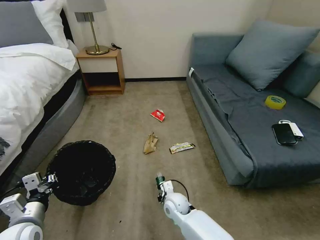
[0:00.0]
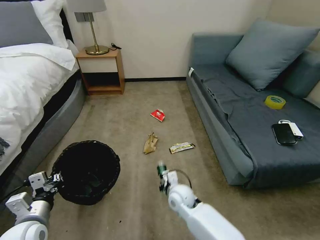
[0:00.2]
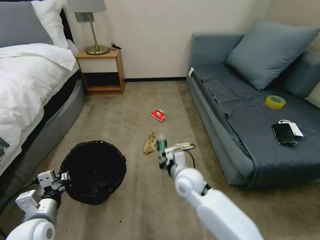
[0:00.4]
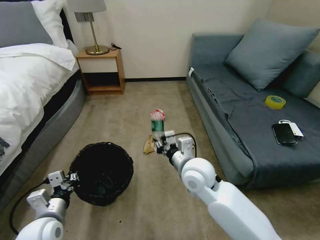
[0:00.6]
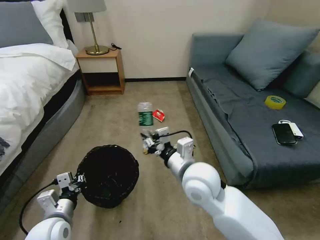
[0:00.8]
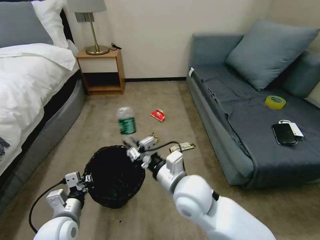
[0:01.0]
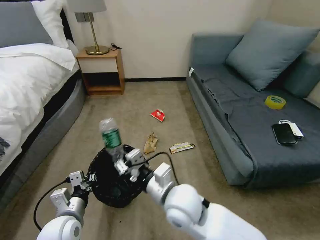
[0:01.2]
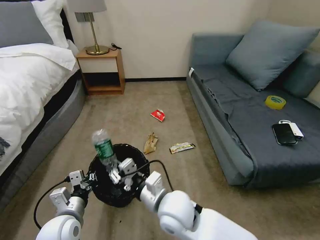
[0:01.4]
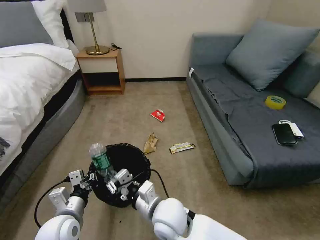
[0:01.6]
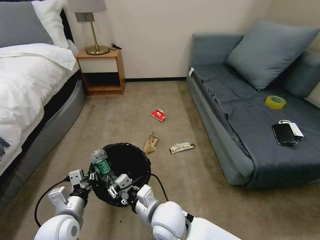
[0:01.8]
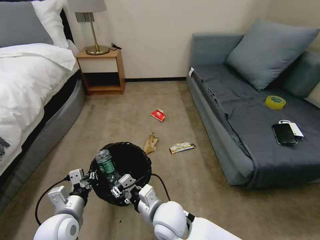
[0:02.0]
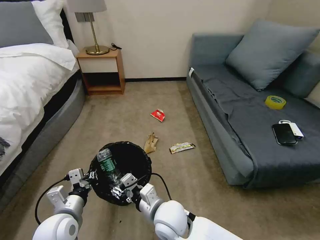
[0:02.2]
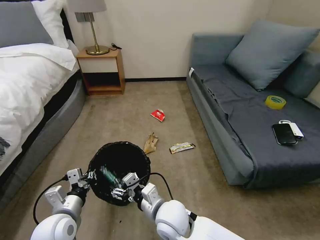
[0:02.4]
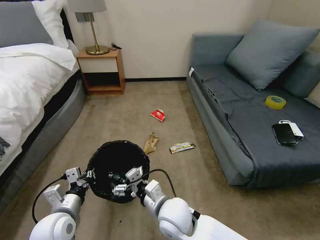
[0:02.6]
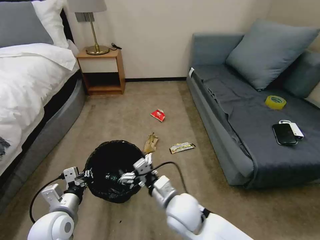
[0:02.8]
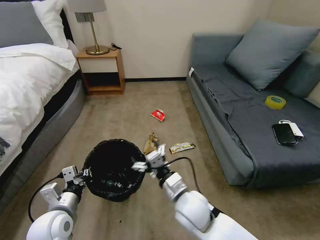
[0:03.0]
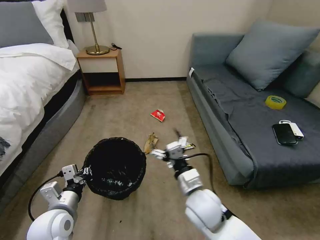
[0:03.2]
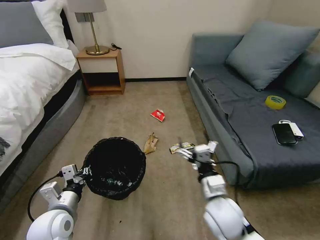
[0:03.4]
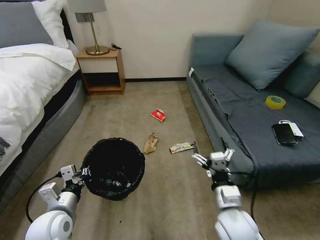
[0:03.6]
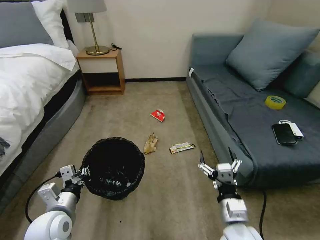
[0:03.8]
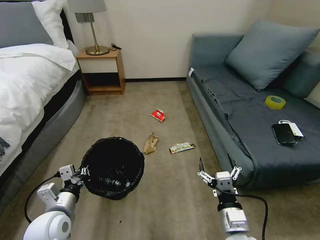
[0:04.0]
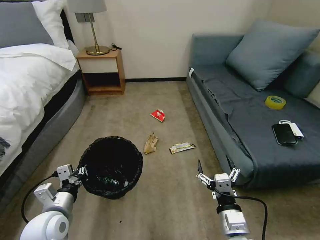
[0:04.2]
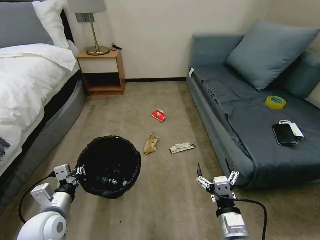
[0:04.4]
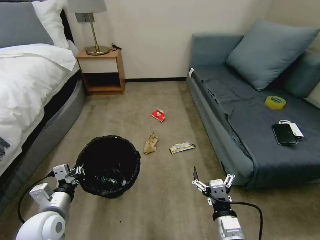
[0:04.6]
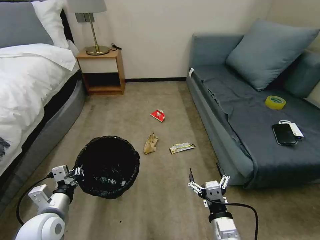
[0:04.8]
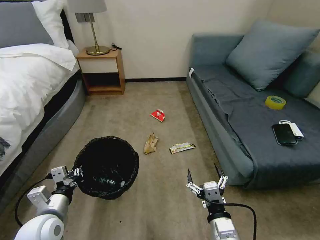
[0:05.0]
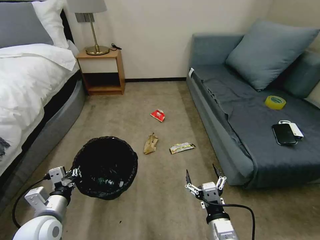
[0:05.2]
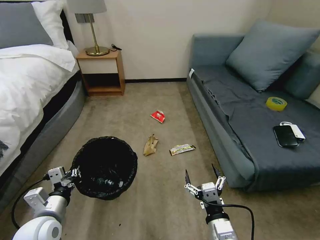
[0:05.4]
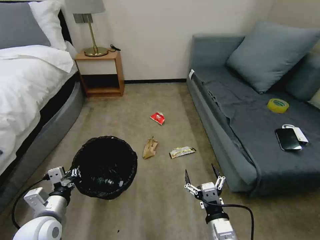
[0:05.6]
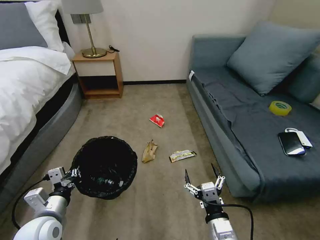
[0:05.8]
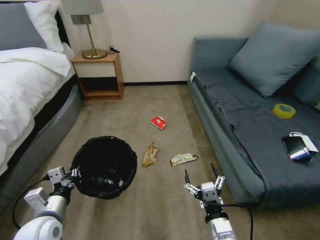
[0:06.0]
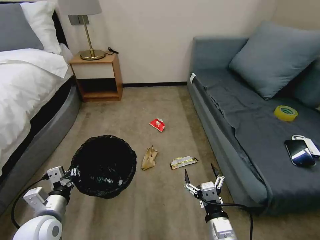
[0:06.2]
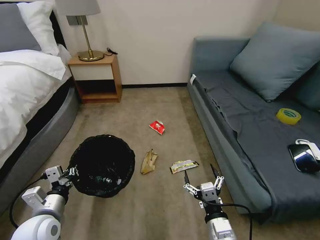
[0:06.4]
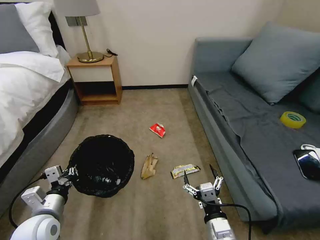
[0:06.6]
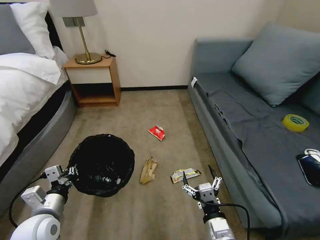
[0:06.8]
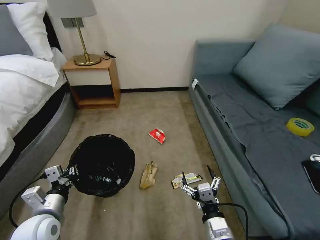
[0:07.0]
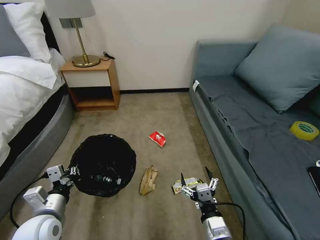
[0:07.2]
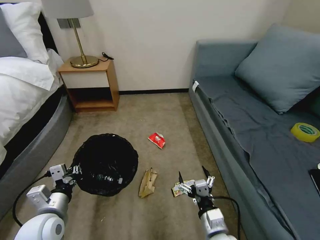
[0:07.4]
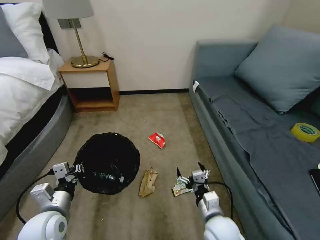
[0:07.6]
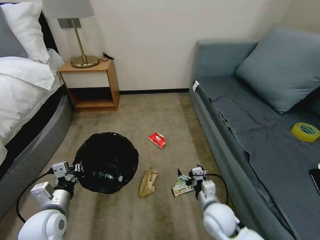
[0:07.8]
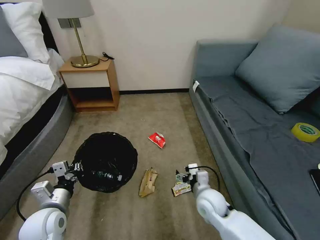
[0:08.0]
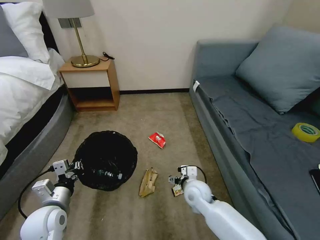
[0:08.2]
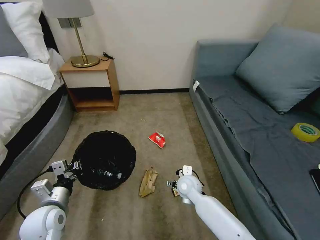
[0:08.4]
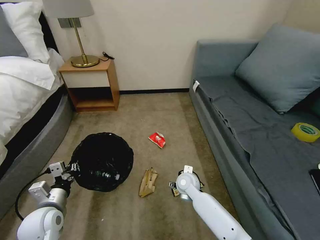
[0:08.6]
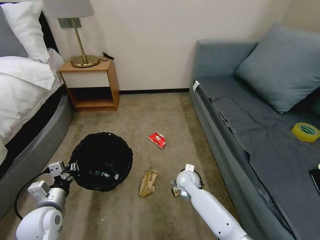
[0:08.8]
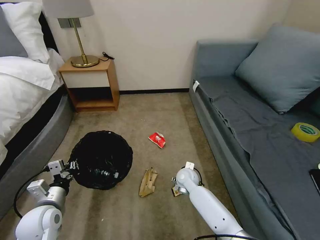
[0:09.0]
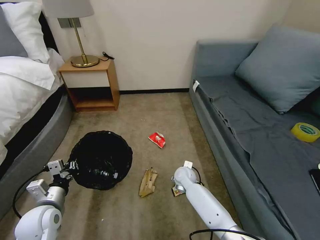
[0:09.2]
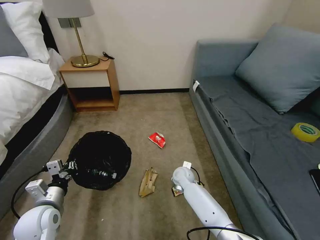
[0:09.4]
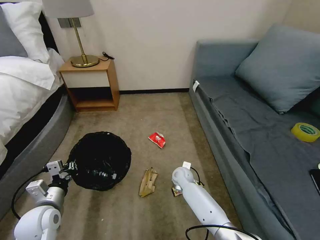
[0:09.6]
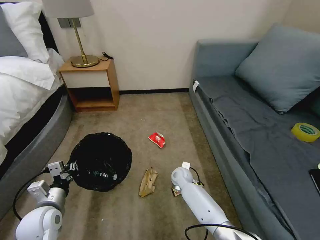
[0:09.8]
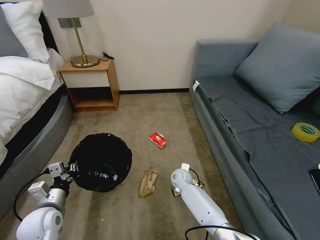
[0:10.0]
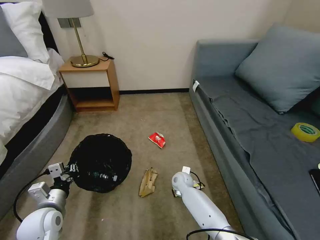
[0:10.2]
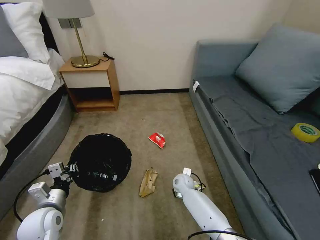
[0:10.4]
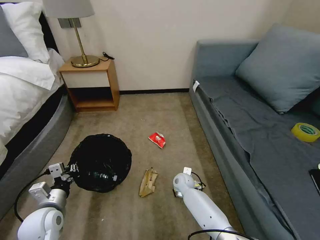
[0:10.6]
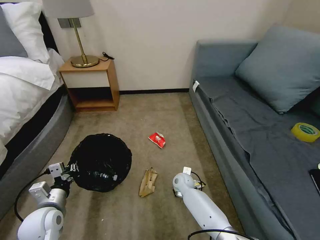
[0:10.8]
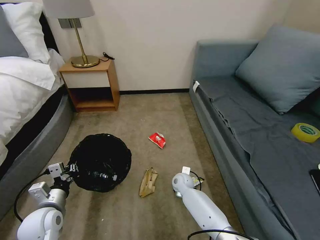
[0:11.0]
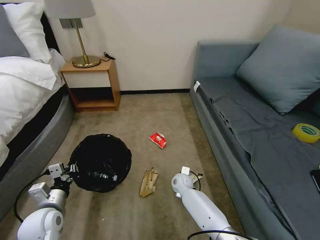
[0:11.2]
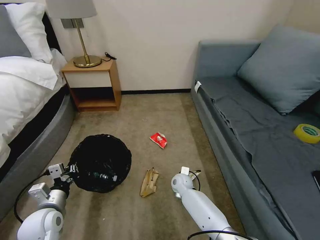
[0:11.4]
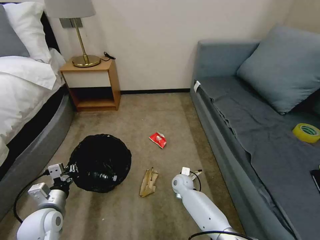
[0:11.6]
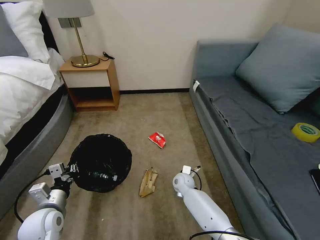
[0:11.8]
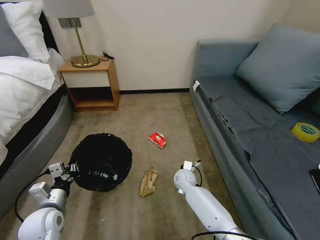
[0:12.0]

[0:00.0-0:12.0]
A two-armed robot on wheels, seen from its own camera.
Task of the whole recording: Pick up the trash bin, then pick up the garbage on the floor and place it into the trash bin.
0:00.0 to 0:01.6: The left gripper shifts roughly 10 cm to the right. The right gripper is displaced upward and backward by roughly 20 cm.
0:01.6 to 0:03.0: The right gripper moves to the right, some 5 cm, and opens.
0:03.0 to 0:04.4: The right gripper is displaced to the right and backward by about 15 cm.
0:06.0 to 0:07.6: The right gripper travels forward by approximately 5 cm.
0:07.6 to 0:09.0: The right gripper moves forward, some 20 cm.
0:09.0 to 0:10.4: The right gripper goes roughly 5 cm downward.
0:10.4 to 0:12.0: The right gripper closes up.

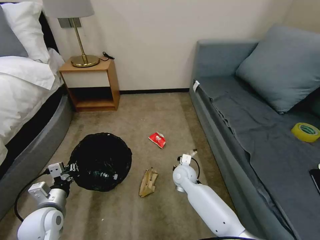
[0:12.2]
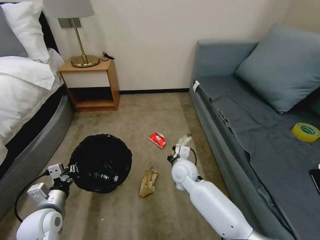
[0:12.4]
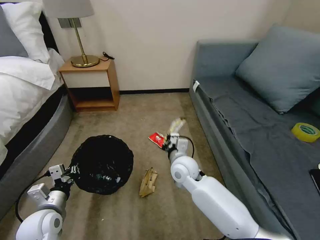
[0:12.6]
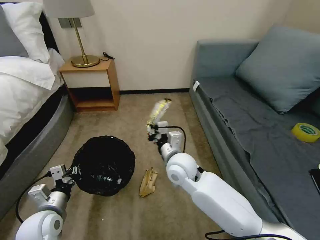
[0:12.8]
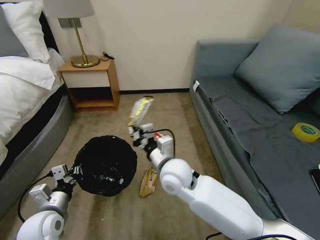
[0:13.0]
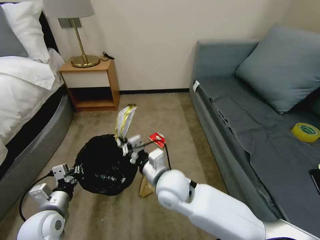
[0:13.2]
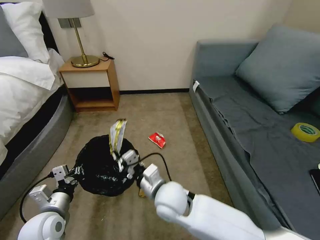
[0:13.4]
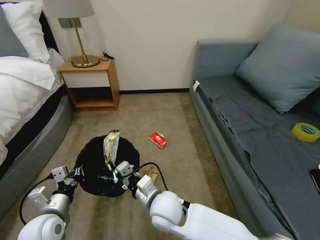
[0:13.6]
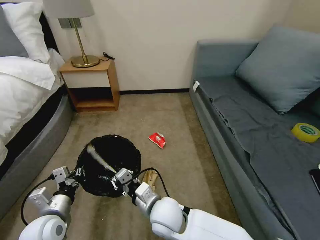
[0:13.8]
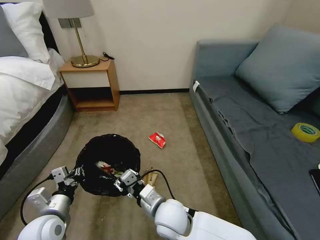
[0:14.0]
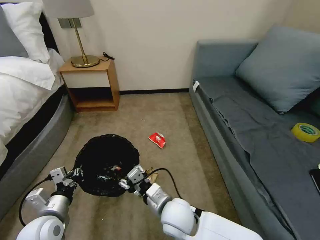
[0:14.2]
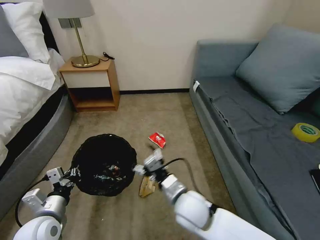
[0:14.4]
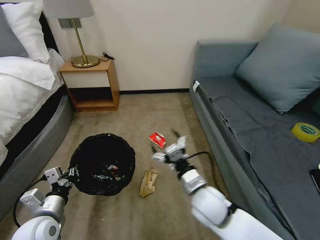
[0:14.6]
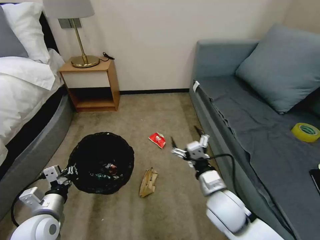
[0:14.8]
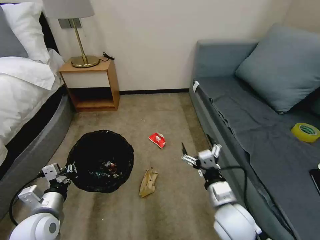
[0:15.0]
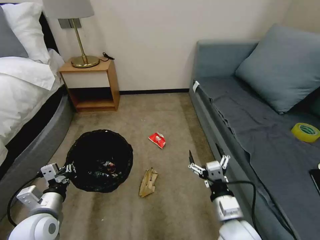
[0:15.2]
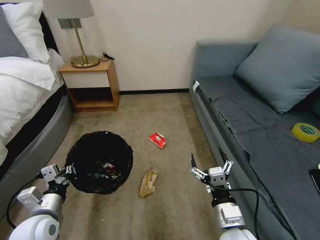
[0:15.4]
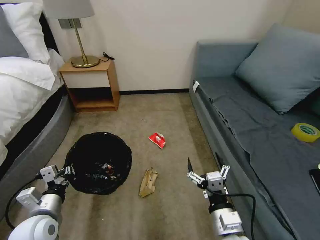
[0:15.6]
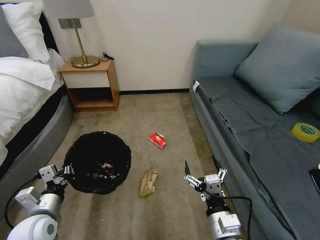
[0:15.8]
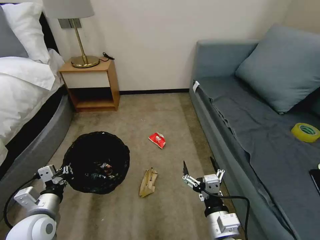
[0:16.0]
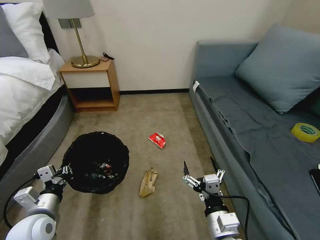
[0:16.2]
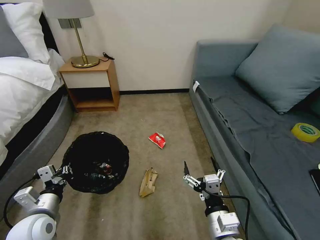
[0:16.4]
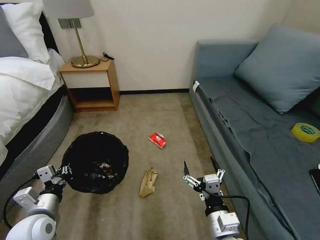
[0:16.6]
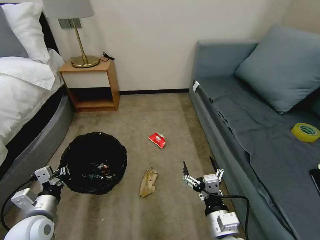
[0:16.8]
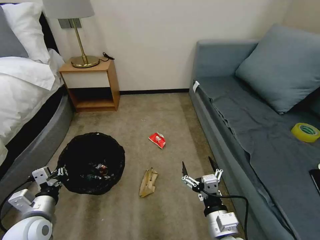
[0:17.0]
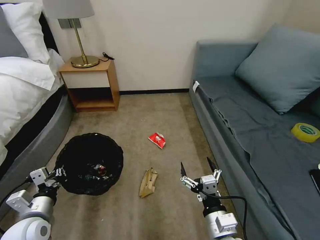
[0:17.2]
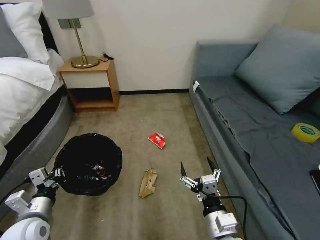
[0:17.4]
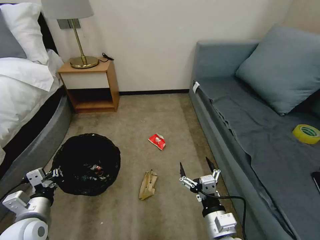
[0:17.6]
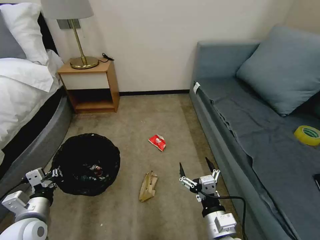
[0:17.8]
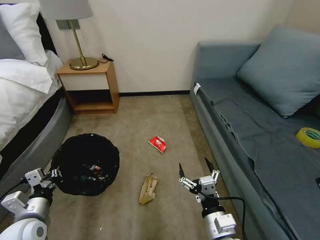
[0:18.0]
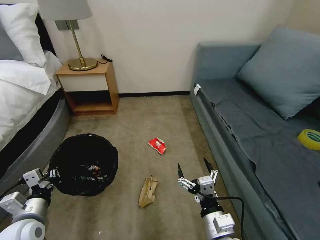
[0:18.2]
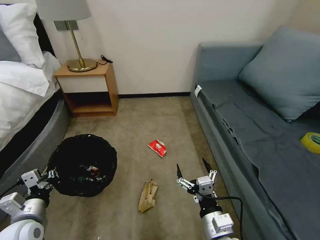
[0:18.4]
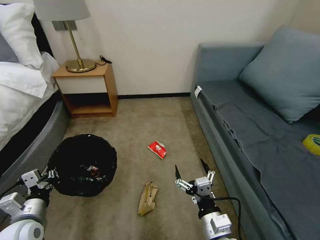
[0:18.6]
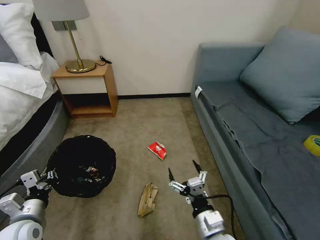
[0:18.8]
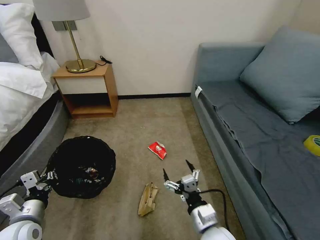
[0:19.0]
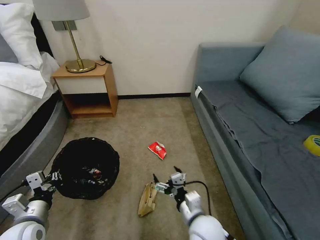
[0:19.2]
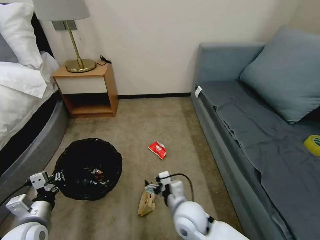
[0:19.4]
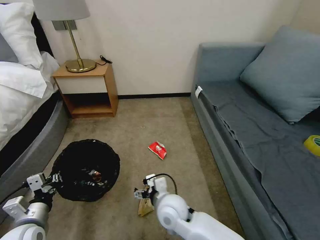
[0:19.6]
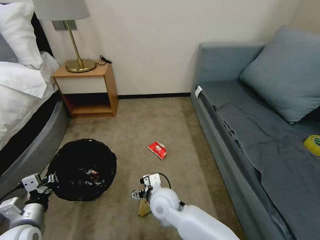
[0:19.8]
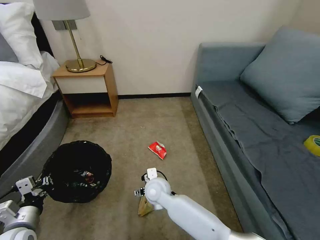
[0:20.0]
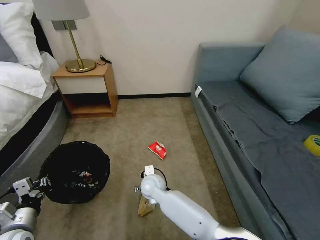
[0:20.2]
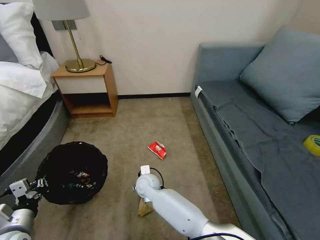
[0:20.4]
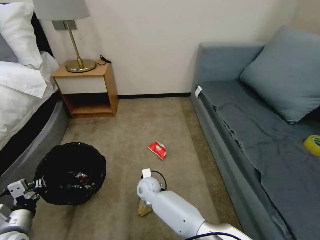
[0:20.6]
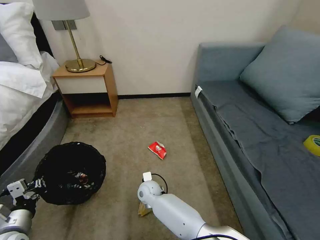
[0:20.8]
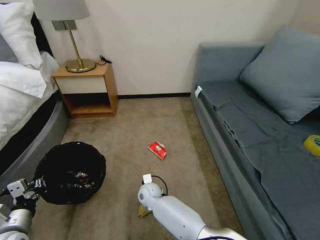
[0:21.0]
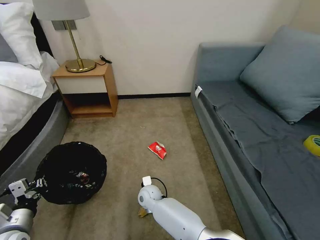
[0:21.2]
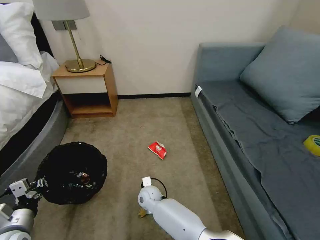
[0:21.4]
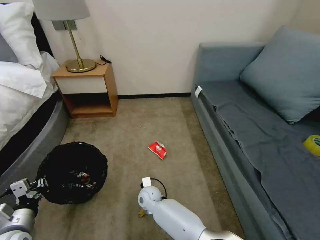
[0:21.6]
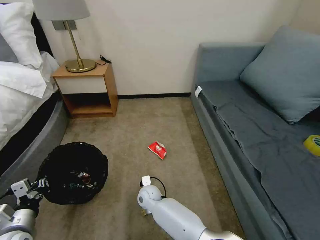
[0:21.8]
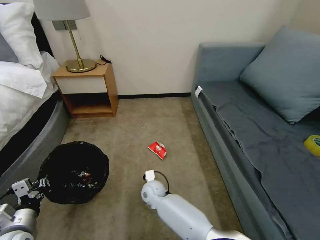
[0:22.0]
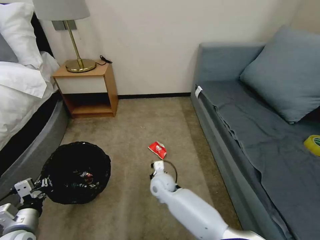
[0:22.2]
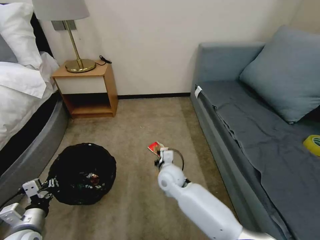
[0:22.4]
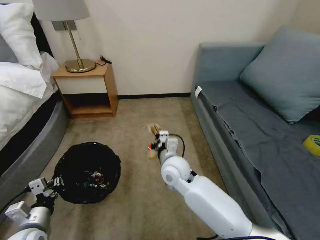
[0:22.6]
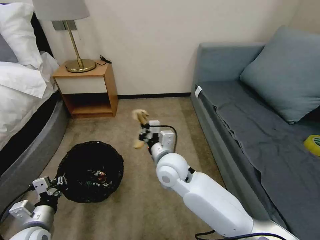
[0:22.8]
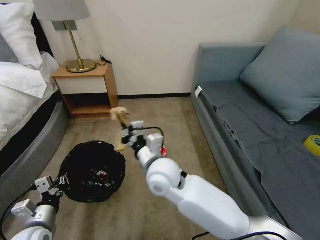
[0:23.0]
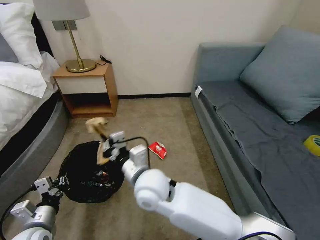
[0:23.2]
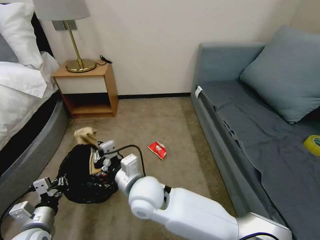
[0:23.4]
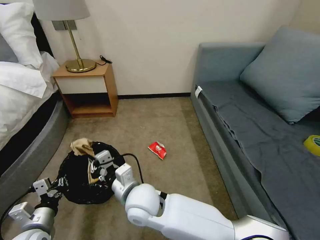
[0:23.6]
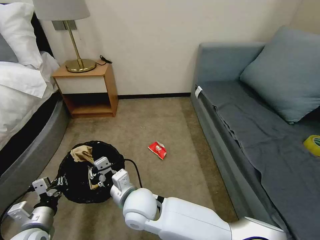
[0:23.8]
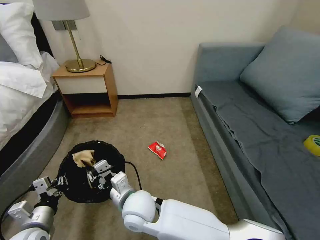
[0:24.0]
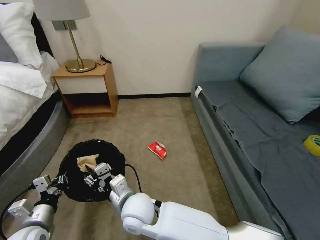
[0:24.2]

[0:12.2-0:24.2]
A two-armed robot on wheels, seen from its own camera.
Task of the whole recording: Pick up the trash bin, then pick up the garbage on the floor and place it into the trash bin.
0:12.2 to 0:13.8: The right gripper goes roughly 20 cm backward, upward and to the left.
0:13.8 to 0:15.2: The right gripper moves to the right, about 20 cm, and opens.
0:15.2 to 0:18.2: The grippers move only a little.
0:18.2 to 0:19.8: The right gripper is displaced to the left and forward by about 20 cm.
0:19.8 to 0:21.2: The right gripper goes some 15 cm downward, forward and to the left.
0:21.2 to 0:22.6: The right gripper goes roughly 20 cm upward and to the right, and closes its fingers.
0:22.6 to 0:24.2: The right gripper travels backward and to the left by some 15 cm, and opens.
